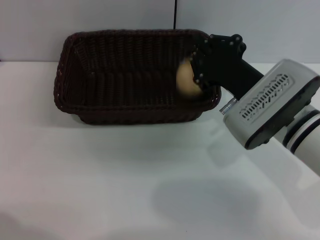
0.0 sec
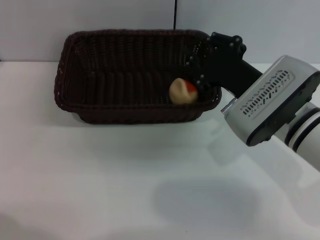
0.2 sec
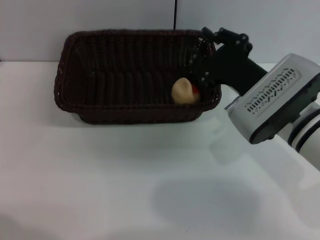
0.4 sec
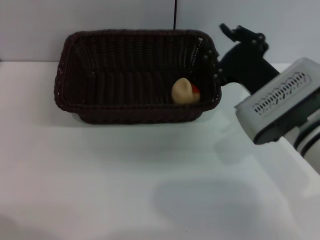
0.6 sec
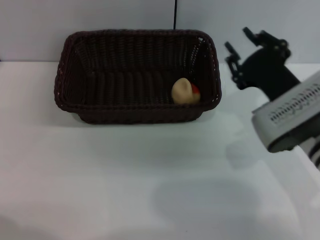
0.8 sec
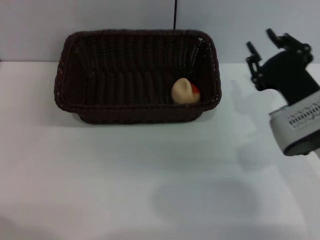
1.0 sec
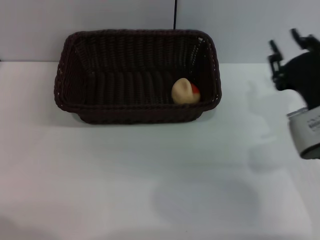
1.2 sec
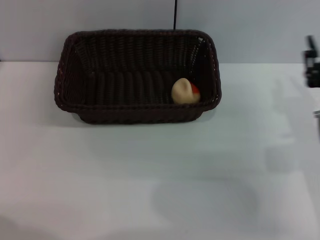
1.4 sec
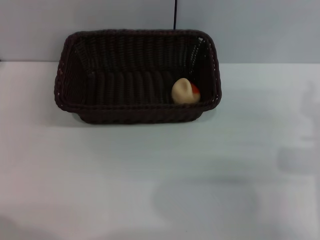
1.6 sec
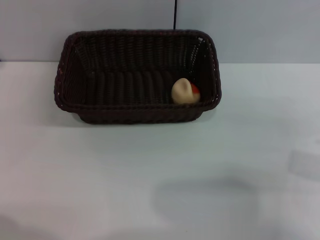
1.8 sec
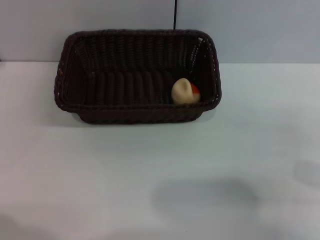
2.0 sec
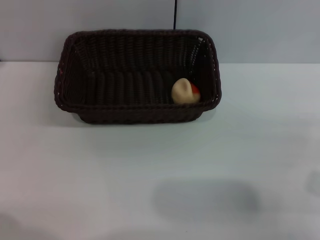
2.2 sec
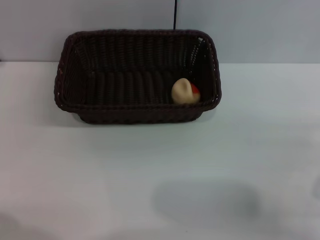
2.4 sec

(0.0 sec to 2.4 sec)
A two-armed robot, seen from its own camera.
0.0 sec - 1.2 sec: The right gripper shifts roughly 5 cm to the right, and opens its fingers.
1.2 sec - 2.4 sec: The right gripper shifts roughly 10 cm backward and to the right.

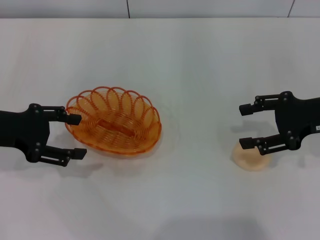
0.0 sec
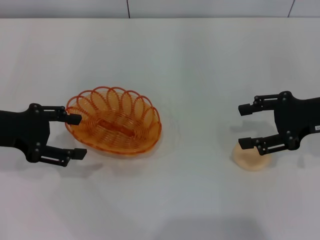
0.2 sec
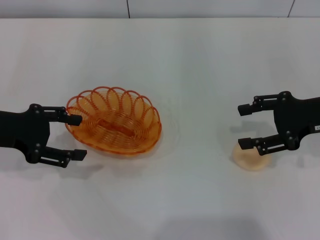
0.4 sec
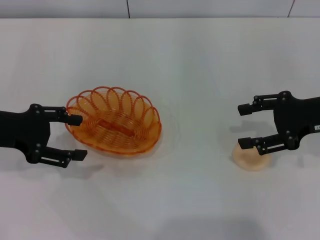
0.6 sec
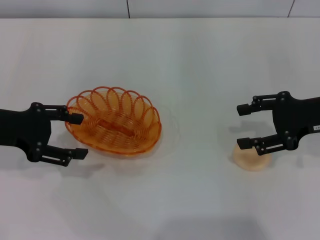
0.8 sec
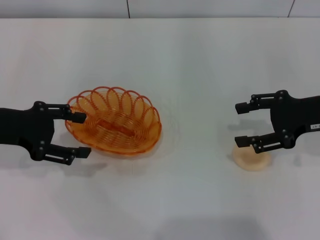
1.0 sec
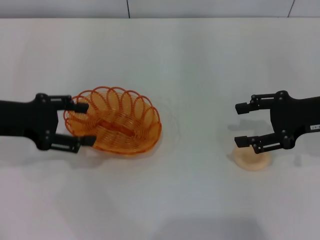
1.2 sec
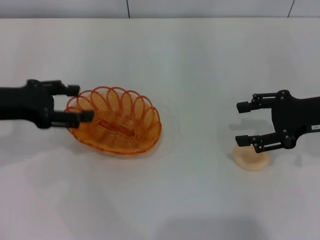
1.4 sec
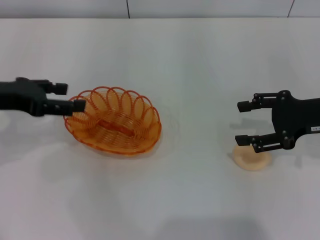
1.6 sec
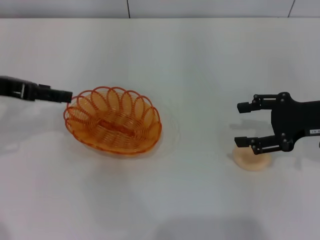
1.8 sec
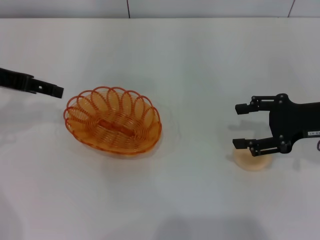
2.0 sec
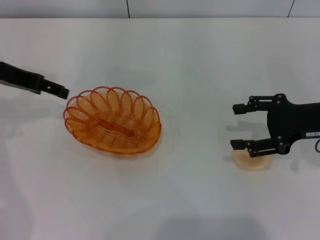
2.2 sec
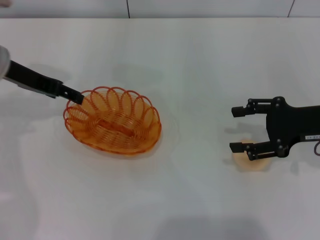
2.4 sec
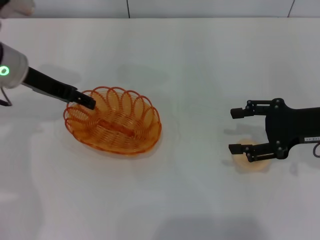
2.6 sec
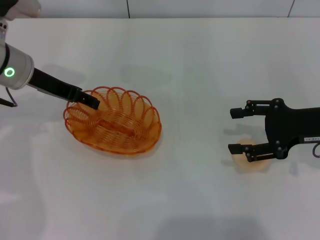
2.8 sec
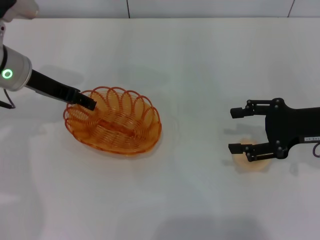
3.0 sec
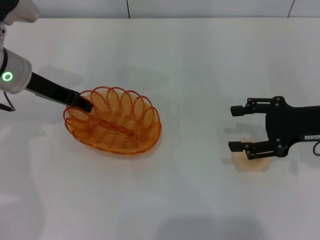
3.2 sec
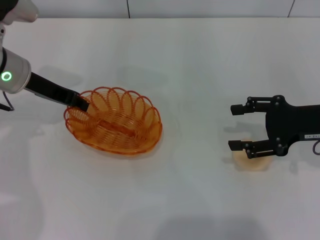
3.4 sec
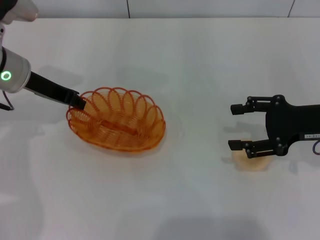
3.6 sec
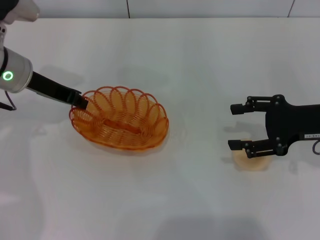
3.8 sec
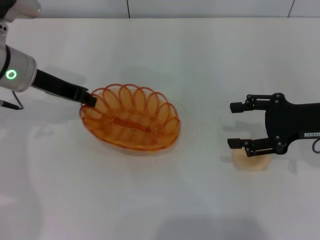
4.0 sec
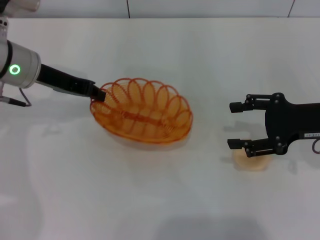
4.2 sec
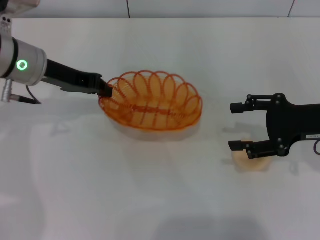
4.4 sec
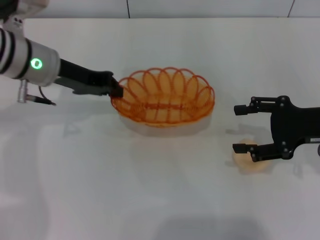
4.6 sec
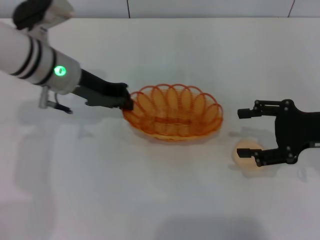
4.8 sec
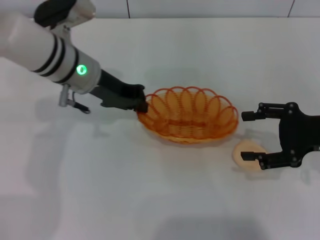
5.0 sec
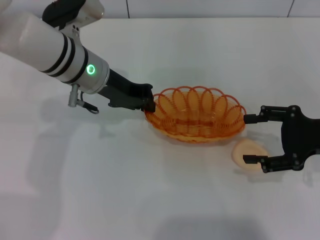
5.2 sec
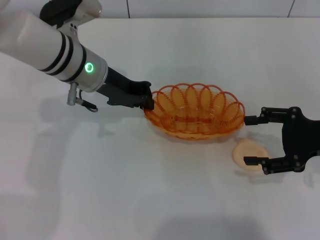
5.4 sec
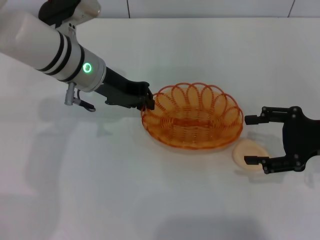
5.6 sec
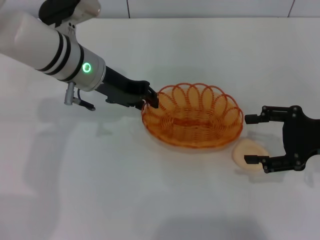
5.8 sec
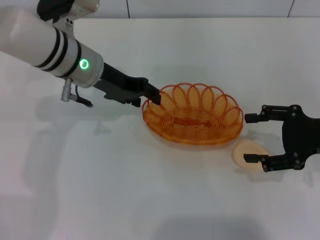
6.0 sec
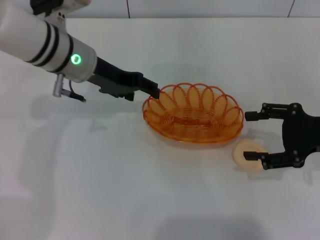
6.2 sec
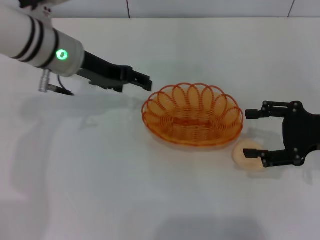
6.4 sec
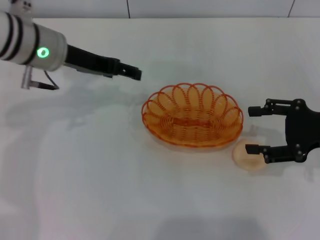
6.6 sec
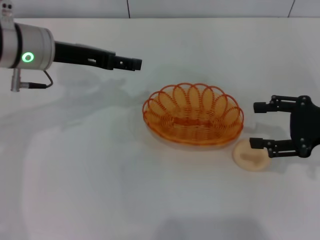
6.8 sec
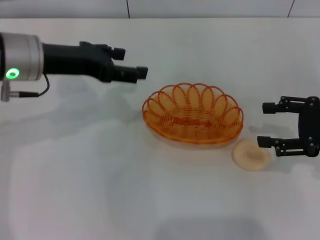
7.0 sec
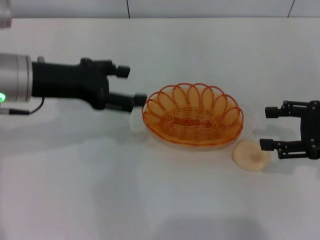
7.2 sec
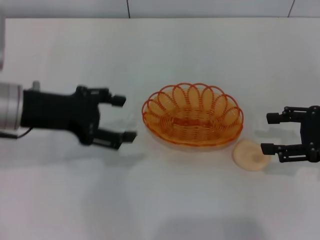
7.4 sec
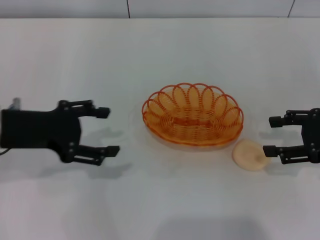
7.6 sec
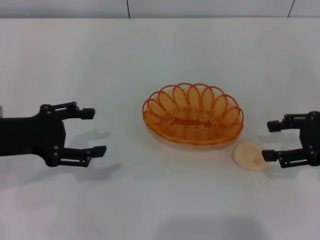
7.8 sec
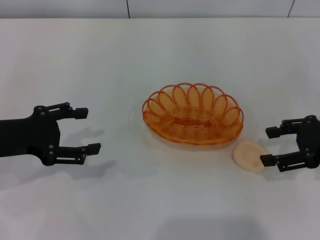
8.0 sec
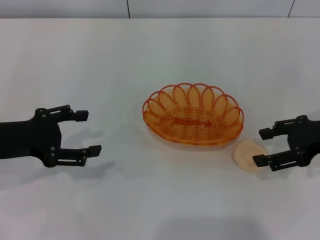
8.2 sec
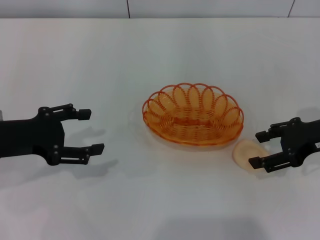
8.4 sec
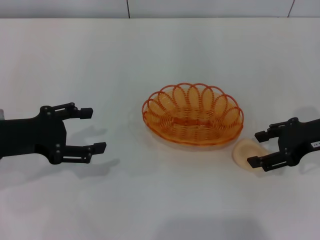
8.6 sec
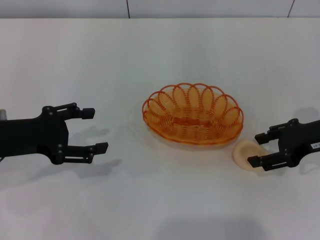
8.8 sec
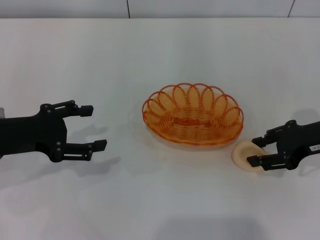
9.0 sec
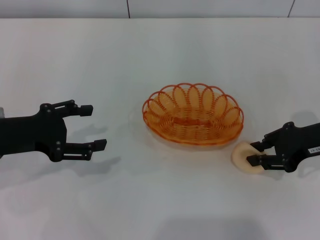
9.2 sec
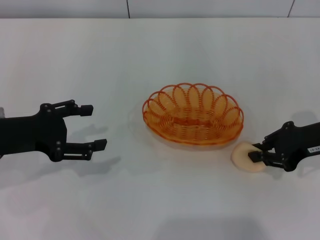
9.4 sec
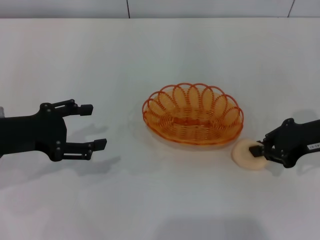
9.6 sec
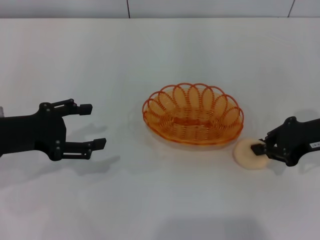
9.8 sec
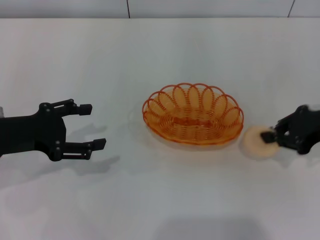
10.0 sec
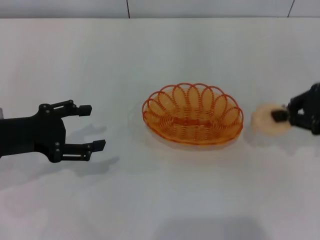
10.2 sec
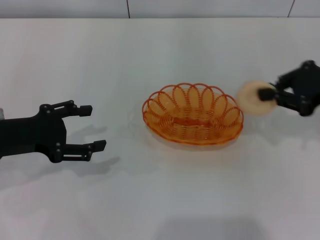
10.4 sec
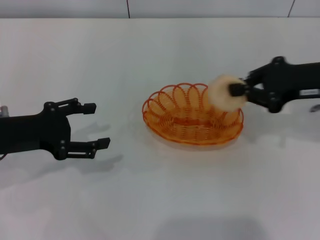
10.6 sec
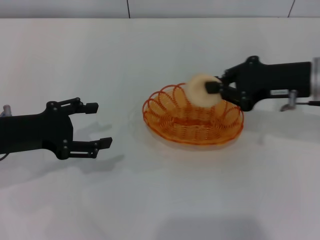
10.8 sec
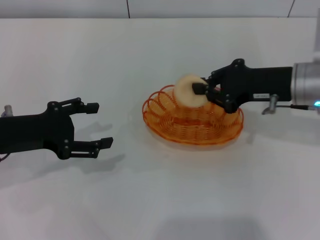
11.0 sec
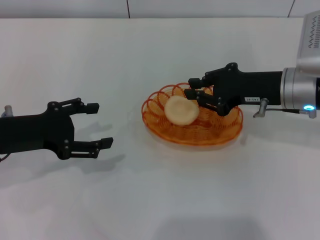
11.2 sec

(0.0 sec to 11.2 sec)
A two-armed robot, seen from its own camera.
Step, 0.0 sec - 4.4 sec: Pick up the basket with the left gripper.
Step, 4.6 sec - 6.8 sec: Place the basket in the center of view with the left gripper.
Step, 7.0 sec - 10.2 sec: Pick up the egg yolk pastry with the right gripper.
1.6 sec - 3.2 sec: The left gripper travels forward and to the right by roughly 10 cm.
3.2 sec - 4.8 sec: The left gripper heads to the right, covering some 5 cm, and closes up.
4.8 sec - 6.4 sec: The left gripper opens.
6.4 sec - 8.0 sec: The left gripper shifts approximately 20 cm backward and to the left.
8.0 sec - 9.6 sec: The right gripper closes its fingers.
9.6 sec - 11.2 sec: The right gripper goes some 10 cm to the left.

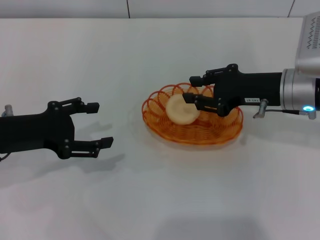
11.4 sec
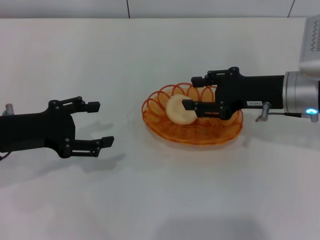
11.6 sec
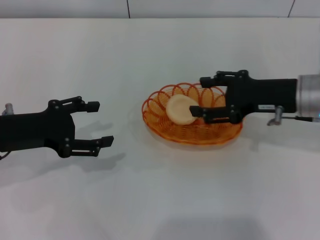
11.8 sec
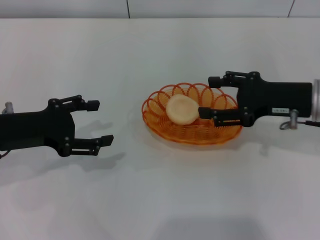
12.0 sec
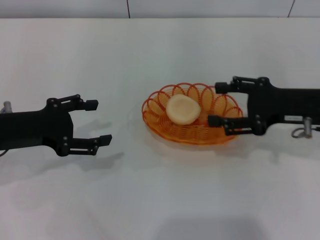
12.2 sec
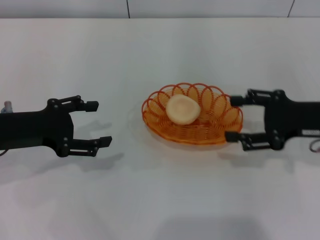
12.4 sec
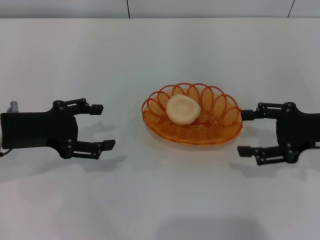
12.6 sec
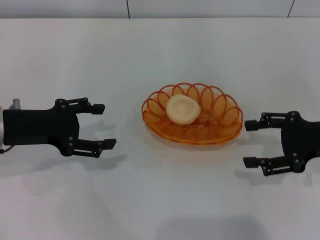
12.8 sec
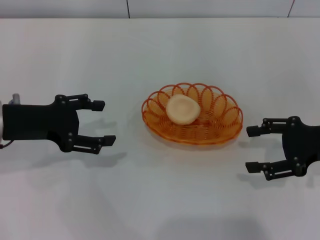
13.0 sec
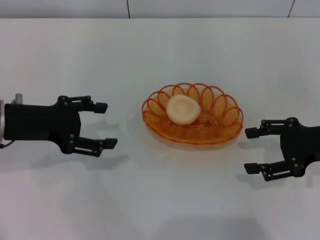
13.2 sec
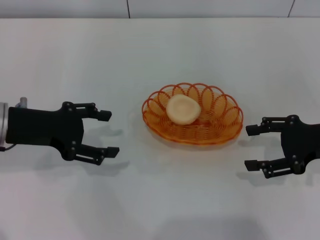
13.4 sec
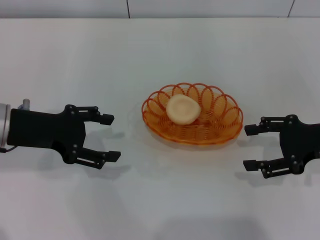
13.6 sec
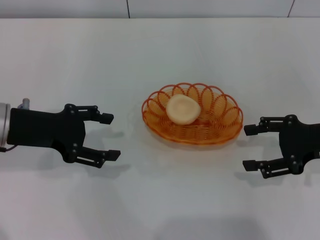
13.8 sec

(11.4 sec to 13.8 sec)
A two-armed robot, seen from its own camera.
11.4 sec - 12.6 sec: The right gripper is displaced to the right and backward by some 10 cm, and opens.
12.6 sec - 13.8 sec: The grippers make only small movements.
